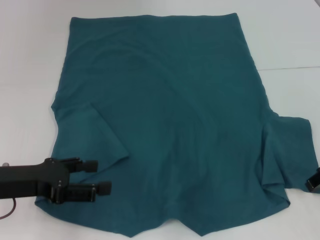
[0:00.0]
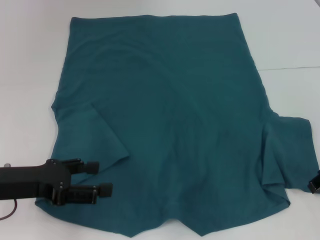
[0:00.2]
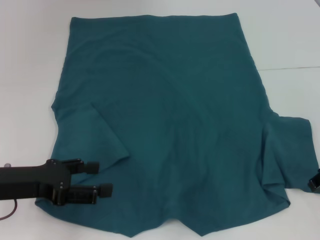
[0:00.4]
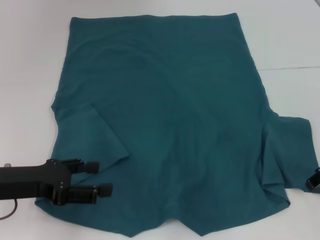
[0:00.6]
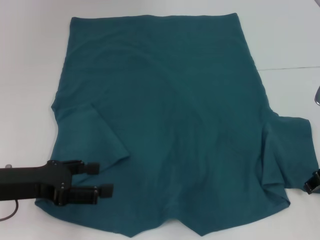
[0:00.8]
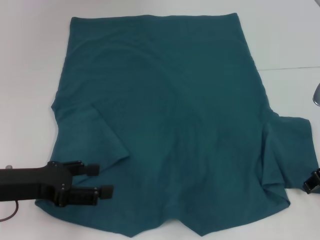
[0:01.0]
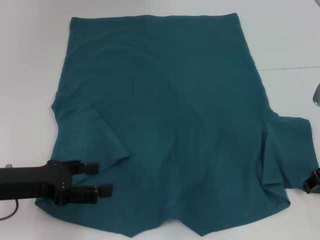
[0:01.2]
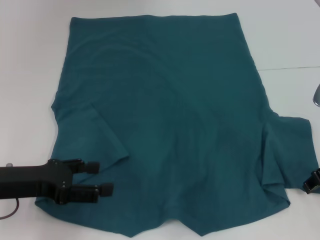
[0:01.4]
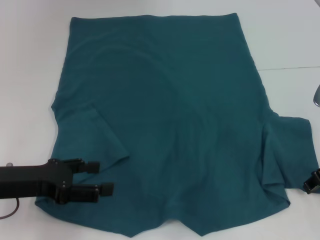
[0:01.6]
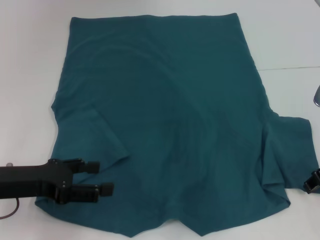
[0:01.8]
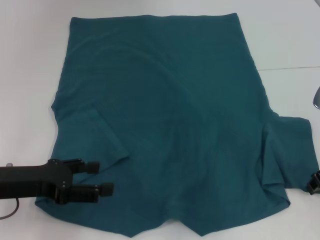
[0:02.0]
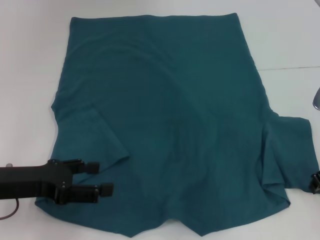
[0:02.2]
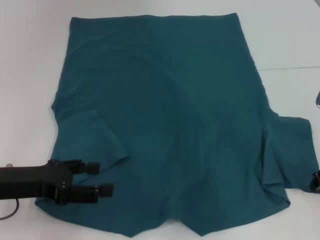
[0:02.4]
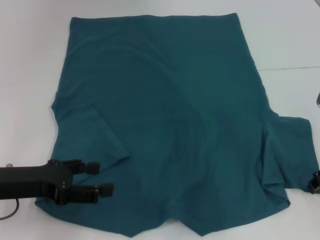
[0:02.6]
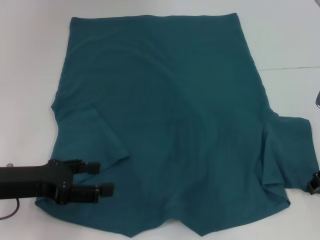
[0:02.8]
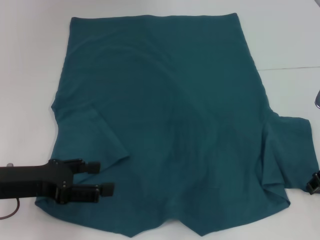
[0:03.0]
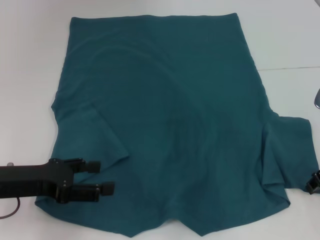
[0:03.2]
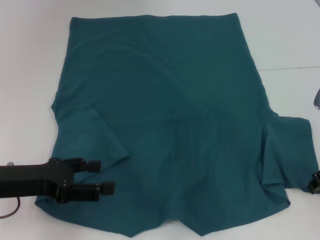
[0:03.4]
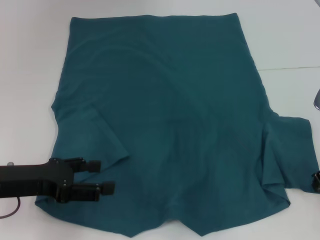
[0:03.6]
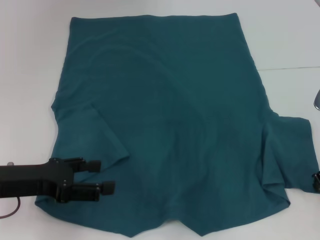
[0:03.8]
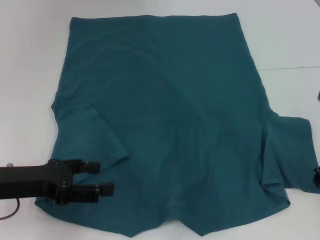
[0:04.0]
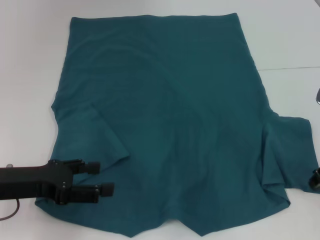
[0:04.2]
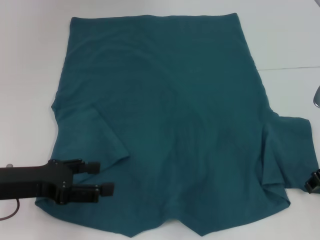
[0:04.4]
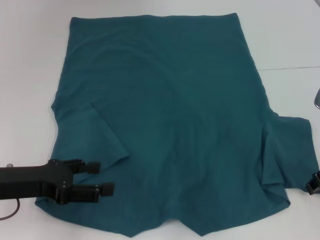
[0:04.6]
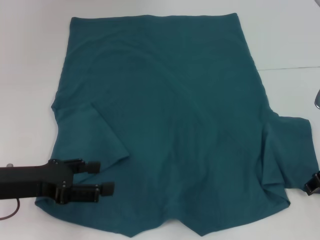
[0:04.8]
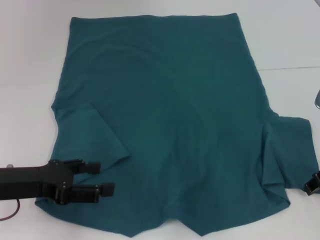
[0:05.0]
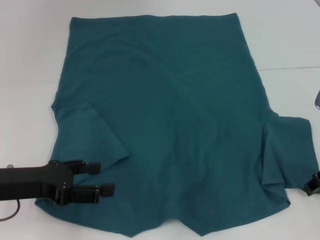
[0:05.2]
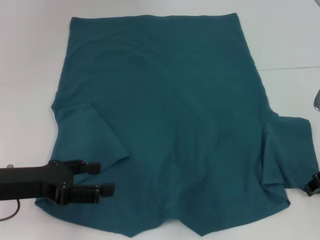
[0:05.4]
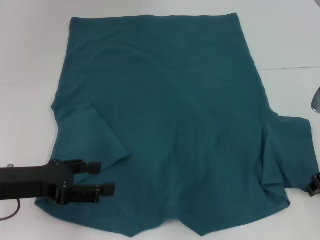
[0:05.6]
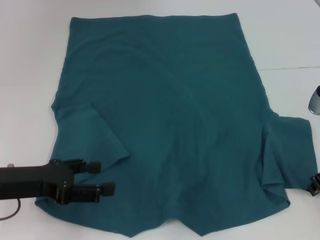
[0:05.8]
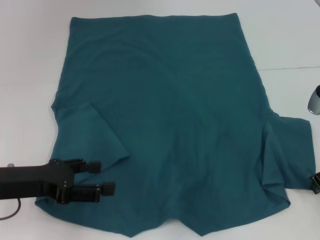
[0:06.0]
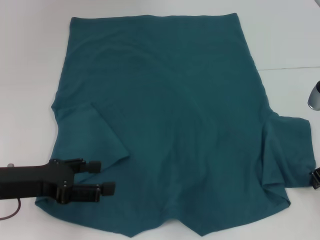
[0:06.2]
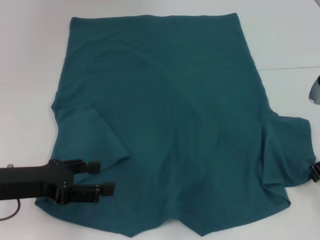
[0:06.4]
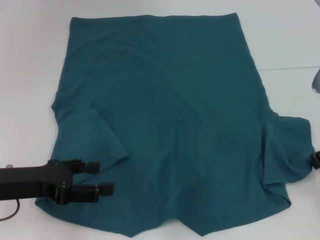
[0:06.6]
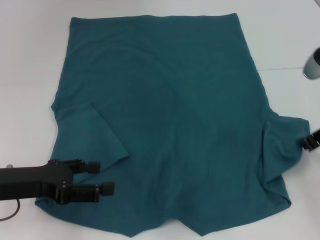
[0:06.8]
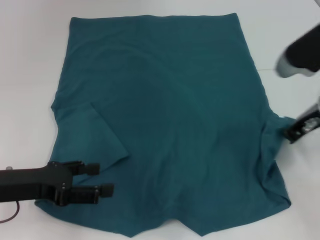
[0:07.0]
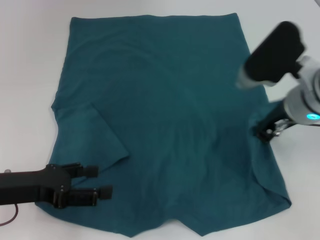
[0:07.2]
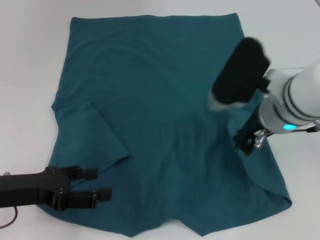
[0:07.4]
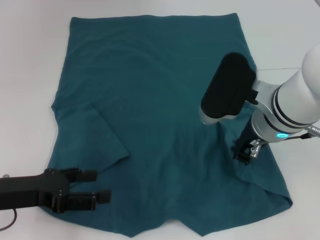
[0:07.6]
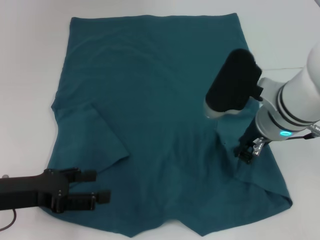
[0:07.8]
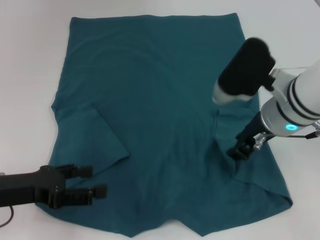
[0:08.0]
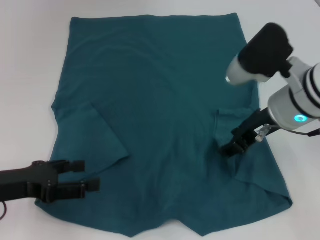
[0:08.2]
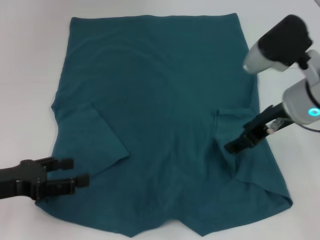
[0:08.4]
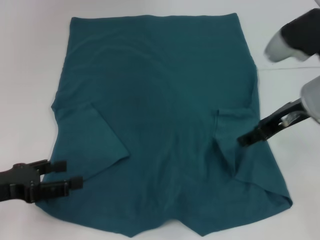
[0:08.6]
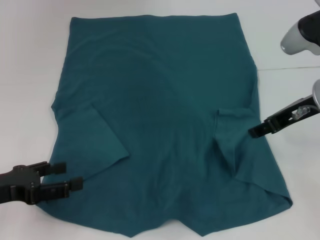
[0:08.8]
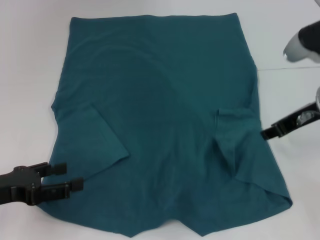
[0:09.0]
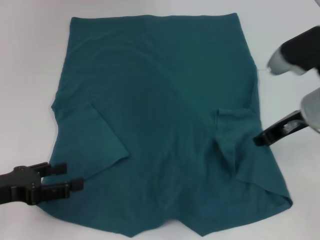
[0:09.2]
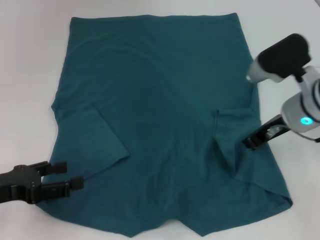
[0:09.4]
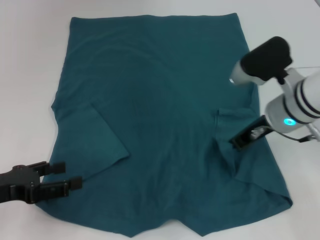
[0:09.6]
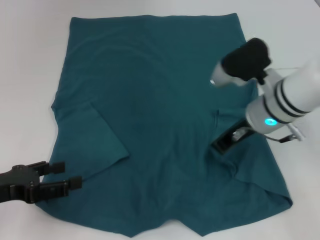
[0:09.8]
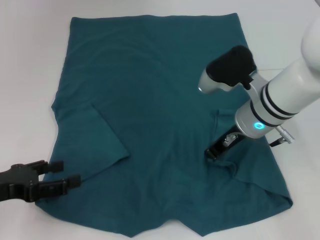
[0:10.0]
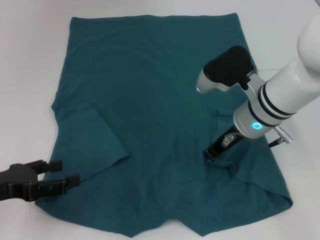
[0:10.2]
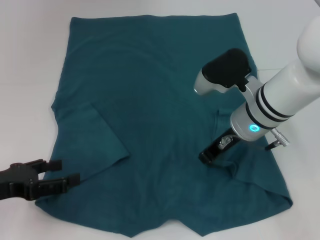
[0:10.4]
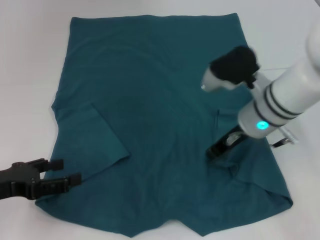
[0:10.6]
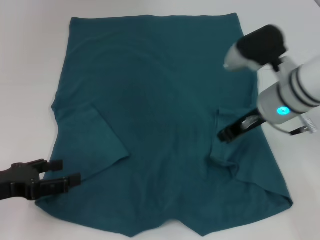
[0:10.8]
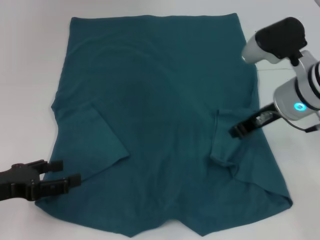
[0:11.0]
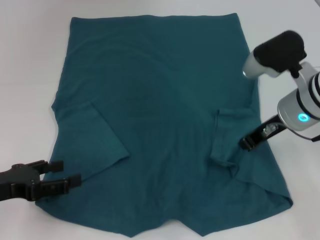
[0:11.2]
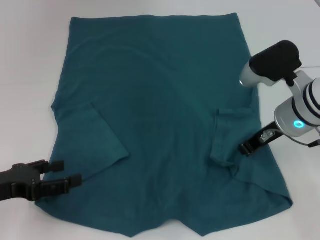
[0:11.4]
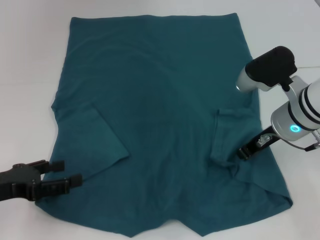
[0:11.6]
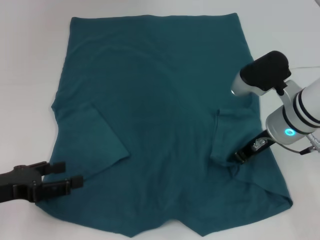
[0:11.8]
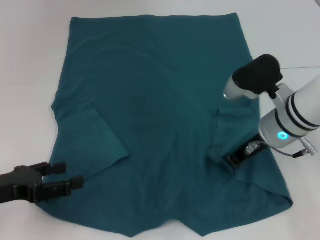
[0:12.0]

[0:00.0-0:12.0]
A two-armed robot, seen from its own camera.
Step, 0:00.0 to 0:08.2: Fold the bottom right sleeve to the right.
0:00.0 to 0:01.6: The grippers make only small movements.
0:01.6 to 0:06.0: The two grippers keep their place.
0:06.0 to 0:07.6: The right gripper travels to the left by approximately 15 cm.
0:07.6 to 0:09.0: The right gripper goes roughly 10 cm to the right, and opens.
0:09.0 to 0:10.4: The right gripper goes some 10 cm to the left and downward, and closes.

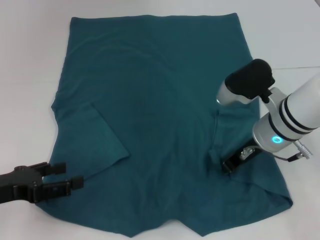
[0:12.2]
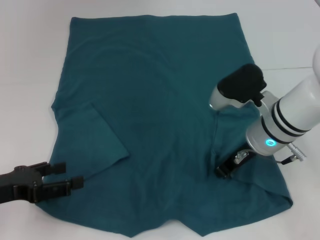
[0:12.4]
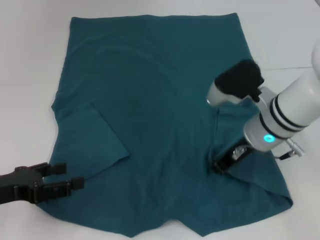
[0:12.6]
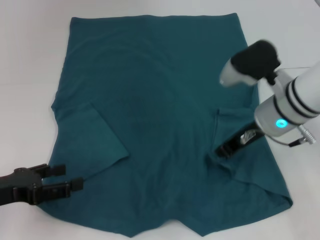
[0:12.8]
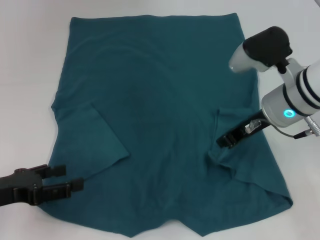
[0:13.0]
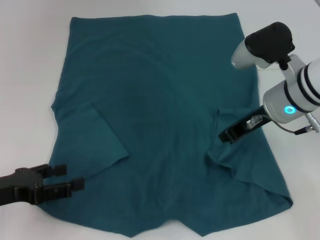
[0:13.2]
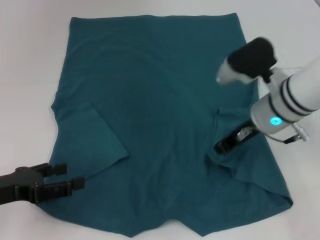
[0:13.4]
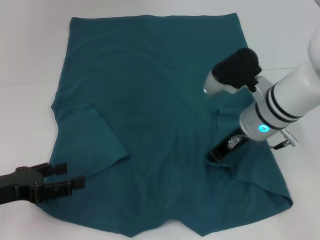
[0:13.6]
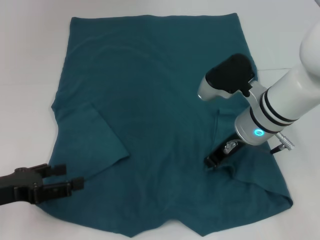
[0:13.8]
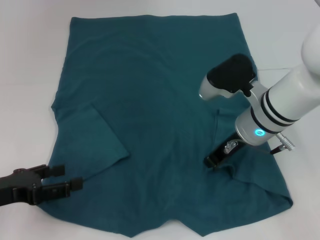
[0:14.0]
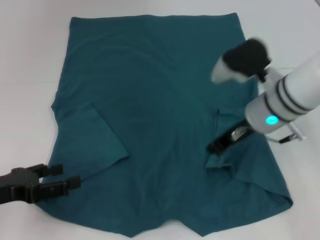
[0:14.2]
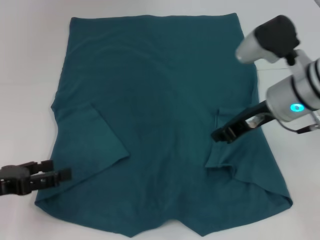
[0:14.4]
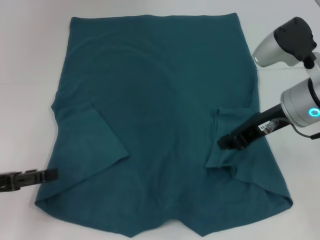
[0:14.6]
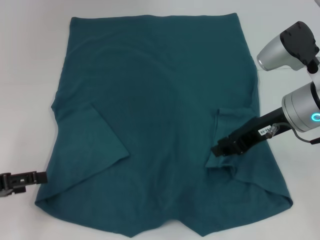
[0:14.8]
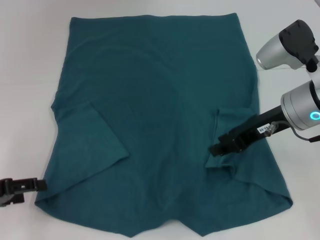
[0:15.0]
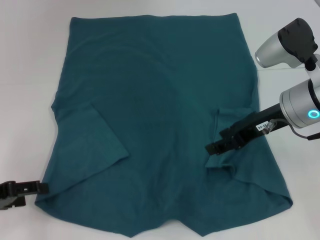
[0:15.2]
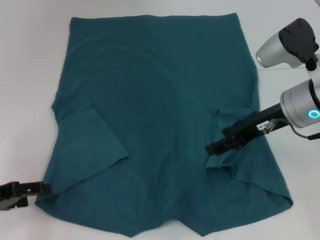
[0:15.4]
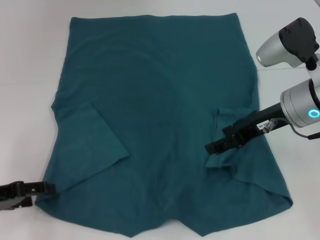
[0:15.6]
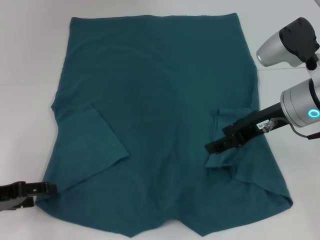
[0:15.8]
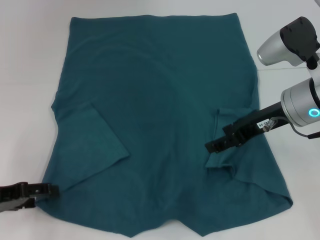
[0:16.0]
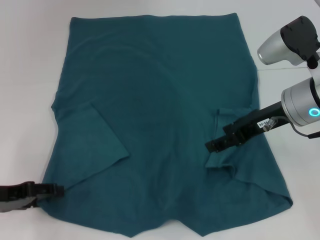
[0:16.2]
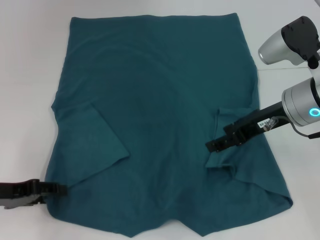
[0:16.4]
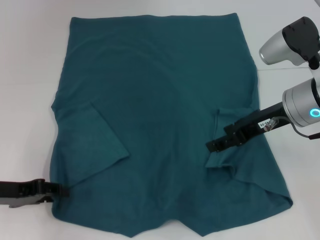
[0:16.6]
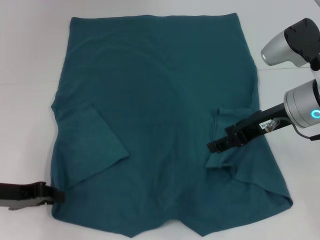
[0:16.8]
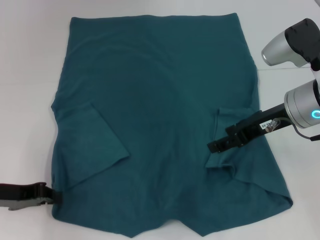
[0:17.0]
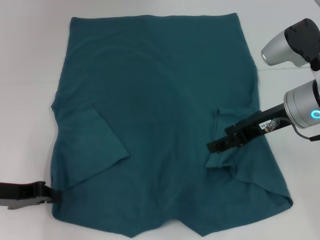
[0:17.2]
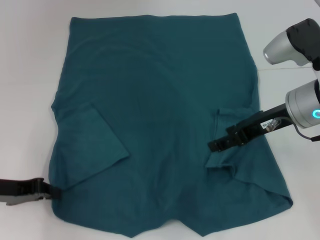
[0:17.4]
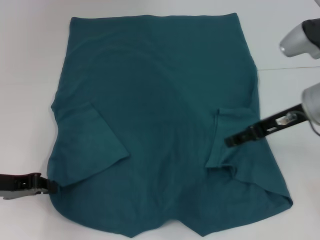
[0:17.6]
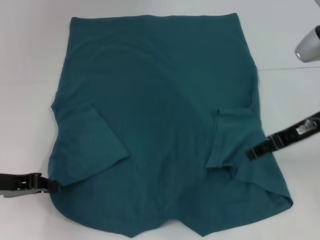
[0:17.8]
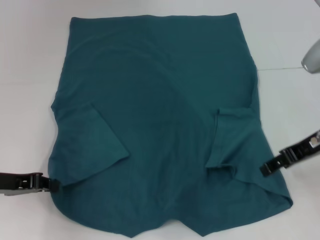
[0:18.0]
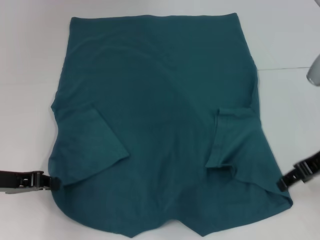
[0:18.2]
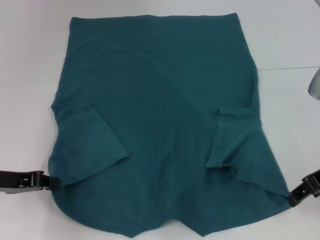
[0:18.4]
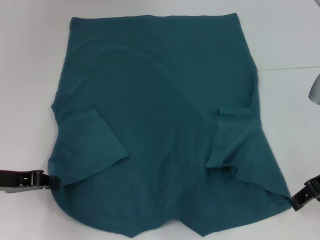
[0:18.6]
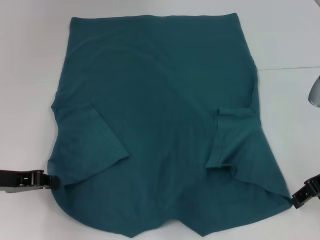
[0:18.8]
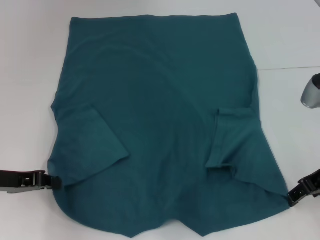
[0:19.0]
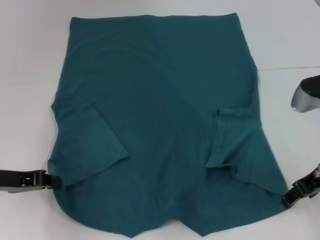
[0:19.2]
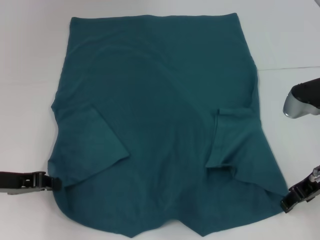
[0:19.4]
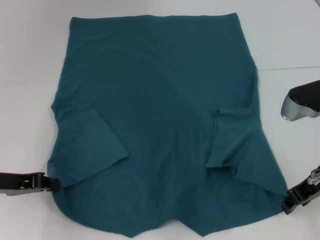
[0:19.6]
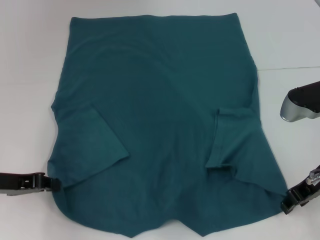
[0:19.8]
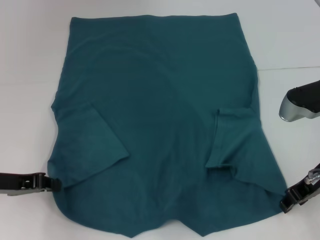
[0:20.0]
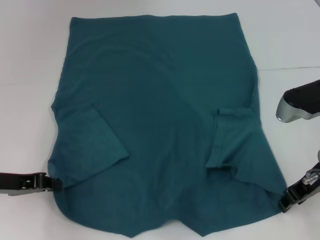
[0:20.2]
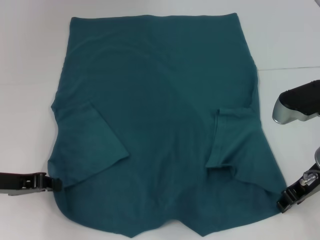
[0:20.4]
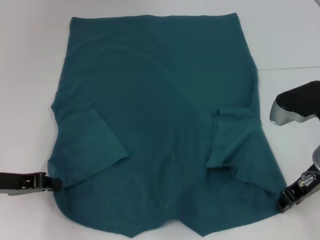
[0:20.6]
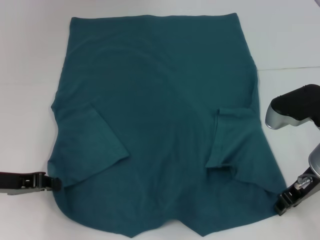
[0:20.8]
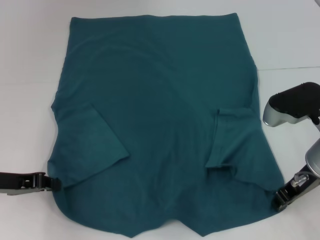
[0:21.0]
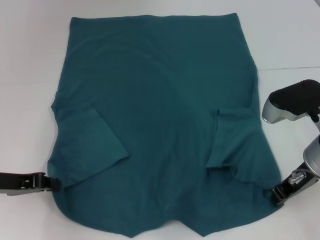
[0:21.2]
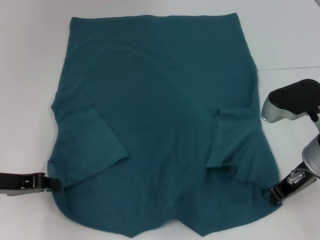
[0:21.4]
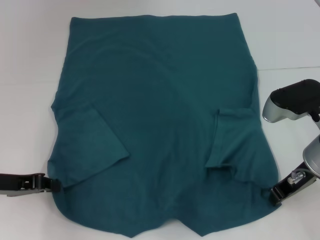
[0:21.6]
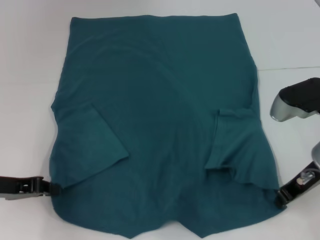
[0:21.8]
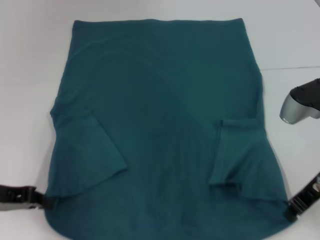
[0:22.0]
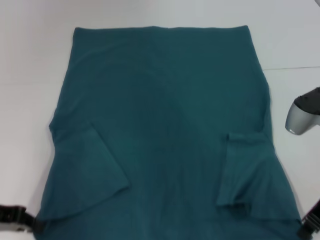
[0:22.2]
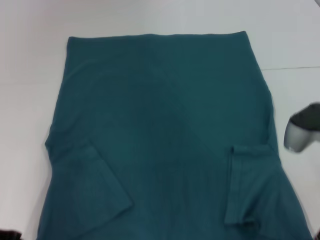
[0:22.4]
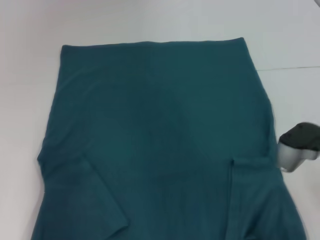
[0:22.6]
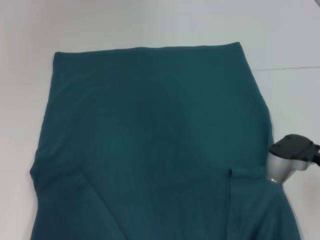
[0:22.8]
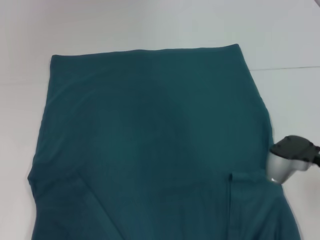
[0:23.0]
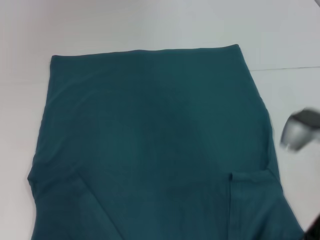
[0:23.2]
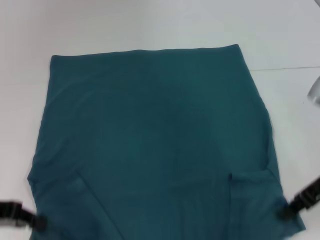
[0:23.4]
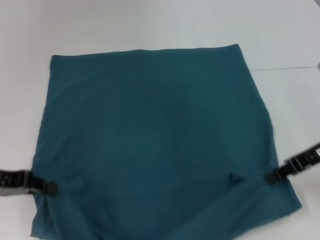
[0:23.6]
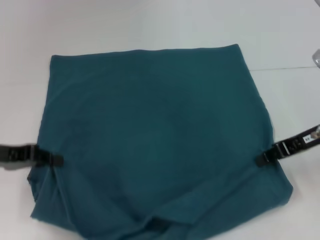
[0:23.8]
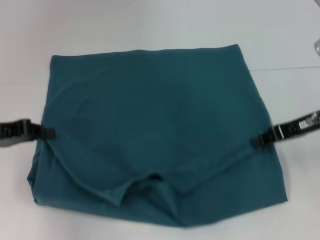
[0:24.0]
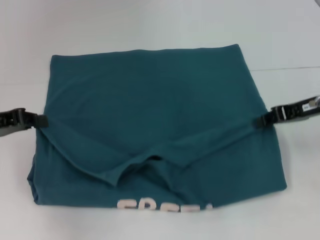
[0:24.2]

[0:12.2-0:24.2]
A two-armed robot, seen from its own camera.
Step, 0:12.2 to 0:16.8: Grab the bottom left corner with your left hand.
Step, 0:17.0 to 0:21.6: Grab the bottom right corner with your right hand.
0:12.2 to 0:13.8: There are only small adjustments of the grippers.
0:13.8 to 0:15.2: The right gripper travels to the right and upward by about 10 cm, and opens its fingers.
0:15.2 to 0:16.6: The grippers move only a little.
0:16.6 to 0:18.2: The left gripper closes its fingers. The right gripper is displaced to the right by approximately 5 cm.
0:18.2 to 0:19.8: The grippers stay close to where they were, moving slightly.
0:19.8 to 0:21.2: The grippers move only a little.
0:21.2 to 0:22.6: The left gripper ends up about 5 cm from where it was.
0:22.6 to 0:24.2: The left gripper moves forward, about 10 cm. The right gripper moves forward and to the right, approximately 10 cm.
